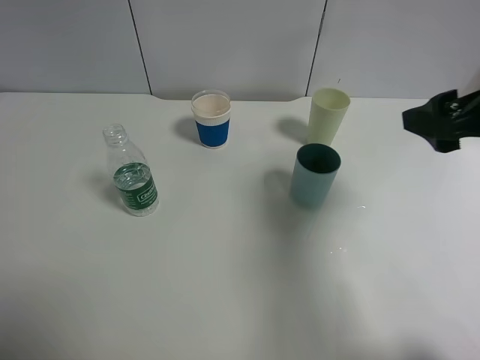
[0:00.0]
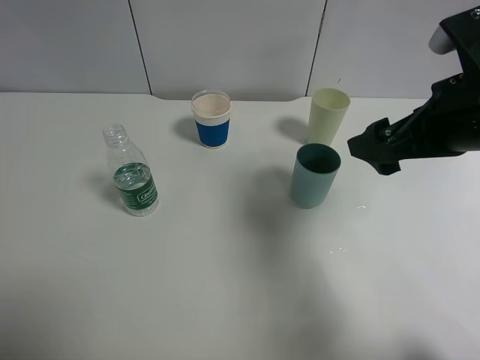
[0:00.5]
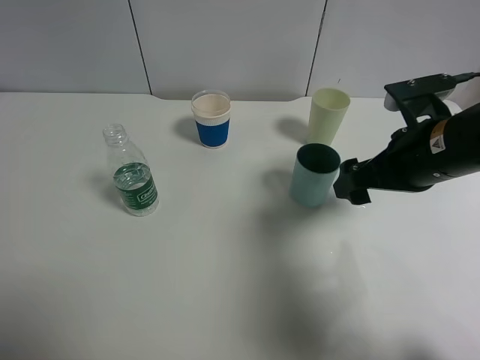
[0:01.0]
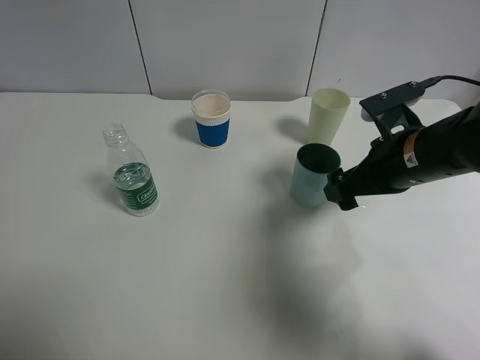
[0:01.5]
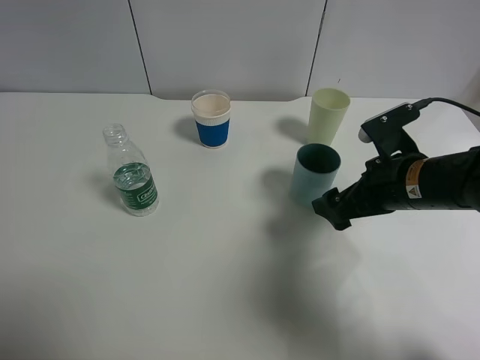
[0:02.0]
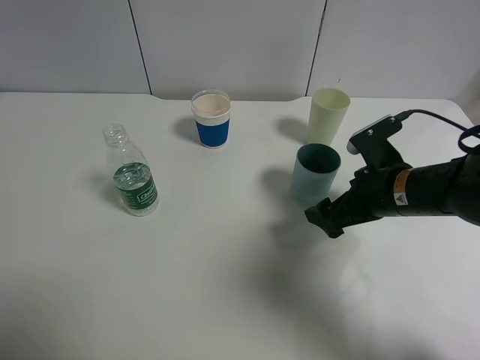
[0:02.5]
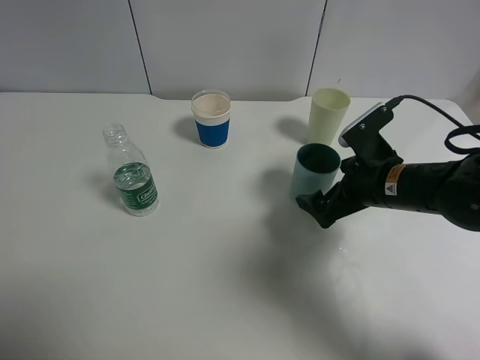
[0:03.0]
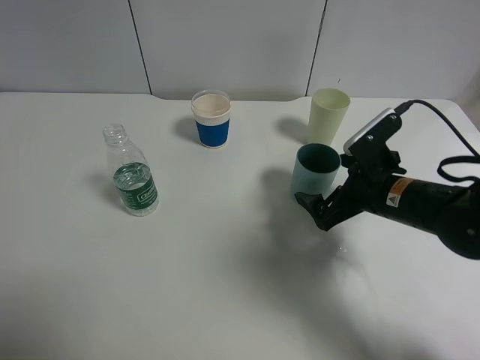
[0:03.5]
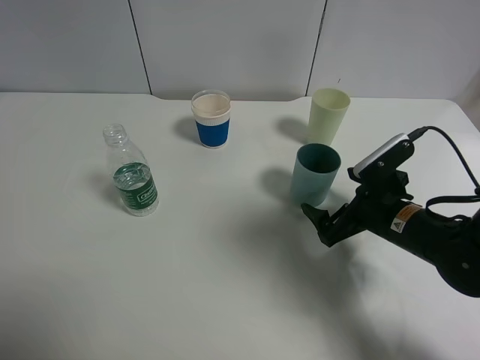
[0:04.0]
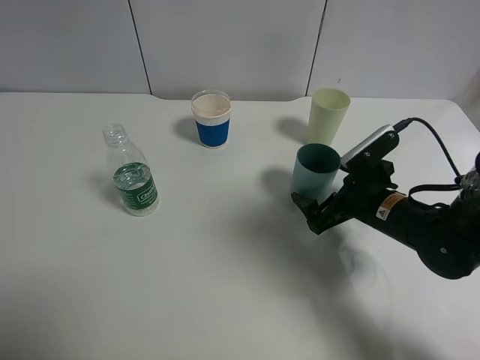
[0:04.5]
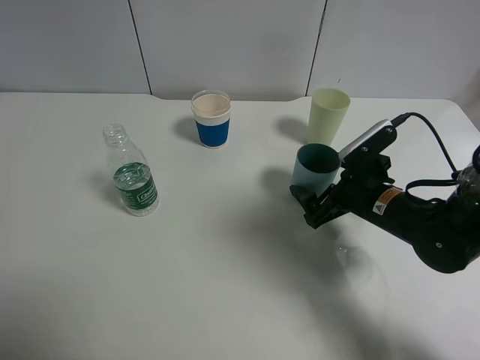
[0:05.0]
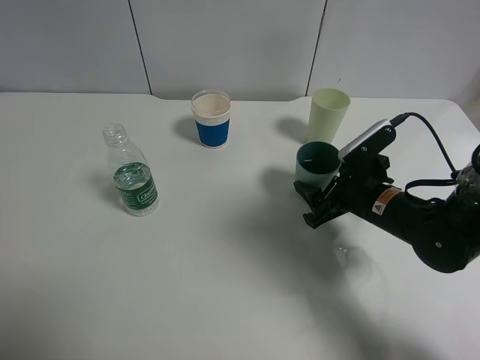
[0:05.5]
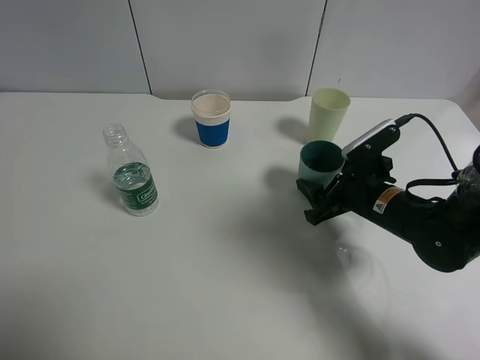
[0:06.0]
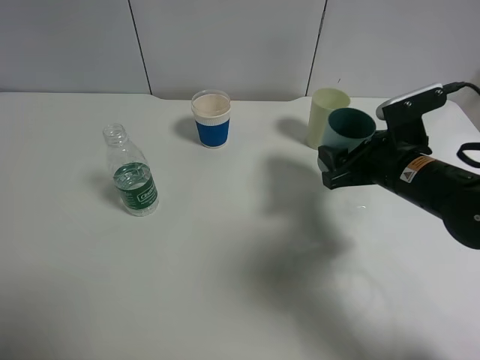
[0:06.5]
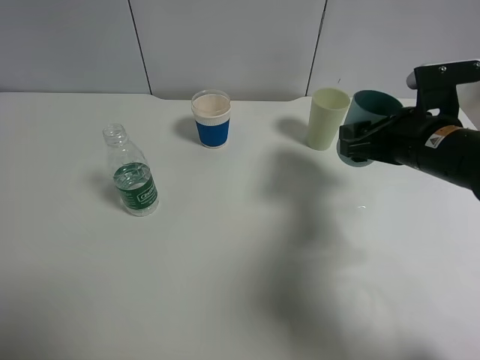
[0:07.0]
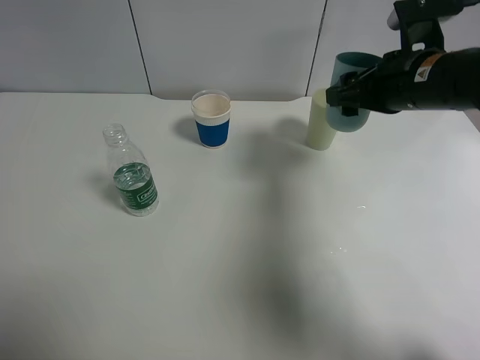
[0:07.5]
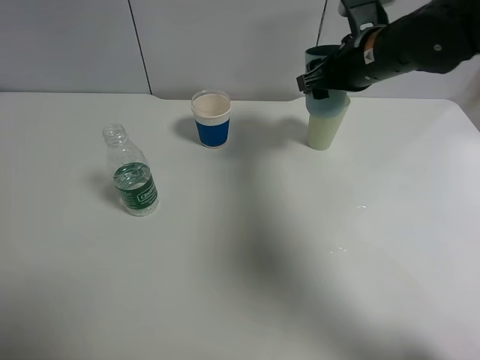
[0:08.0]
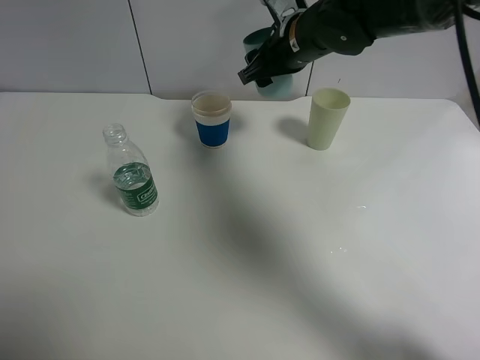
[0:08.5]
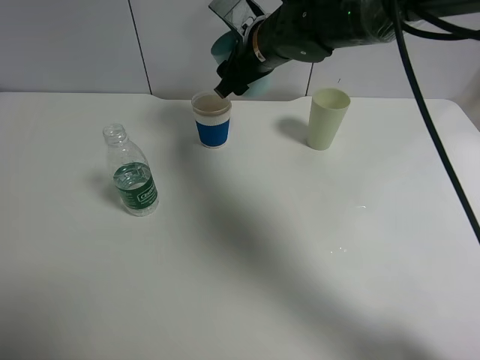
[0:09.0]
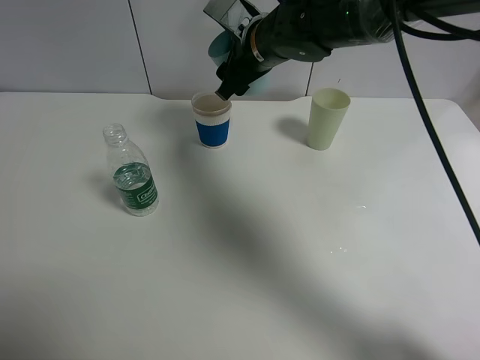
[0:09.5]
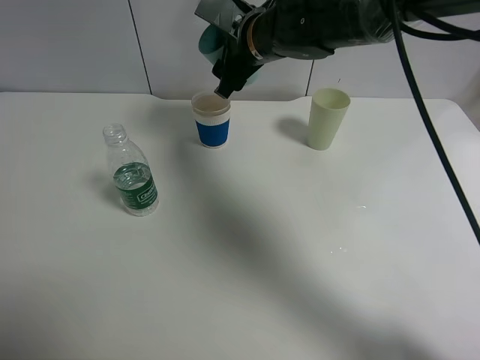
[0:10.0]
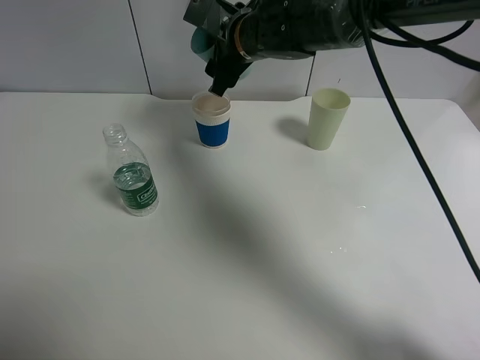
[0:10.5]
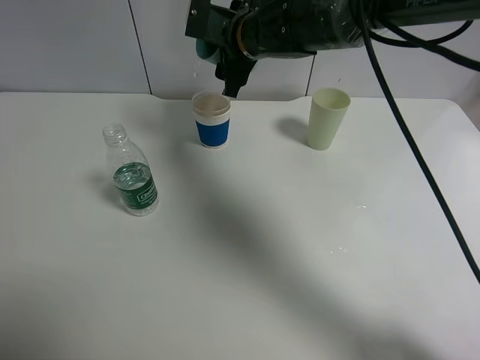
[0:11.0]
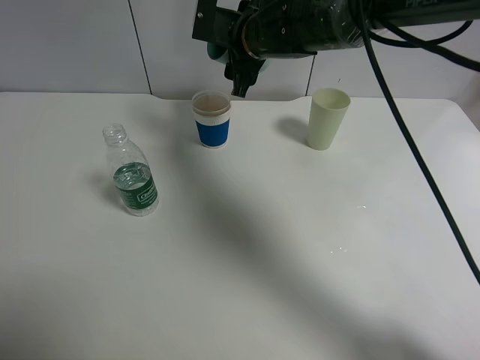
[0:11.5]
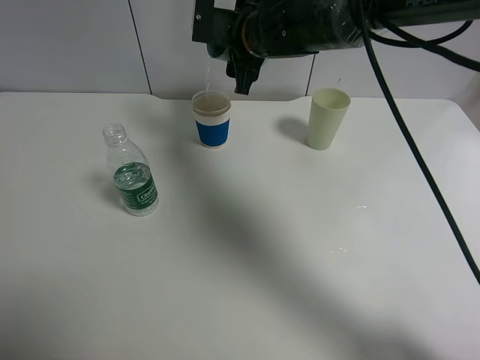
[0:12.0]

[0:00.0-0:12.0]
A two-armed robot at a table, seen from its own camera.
Task of the whole recording: use a clamp to hold the bottle of the drink, pour the beverage into a random cup, then clamp the cup containing the drink and pour the drink into another random cup.
Step, 0:00.0 to 0:06.0: Pick up the blue plastic cup bottle with right gripper.
0:00.0 to 0:02.0: The right gripper is displaced downward and to the left by some 15 cm.
0:02.0 to 0:04.0: The right gripper moves downward, about 5 cm.
0:04.0 to 0:06.0: The right gripper closes.
0:06.0 to 0:08.0: The right gripper moves upward and forward, roughly 20 cm.
0:08.0 to 0:10.0: The right gripper heads to the left, covering about 15 cm.

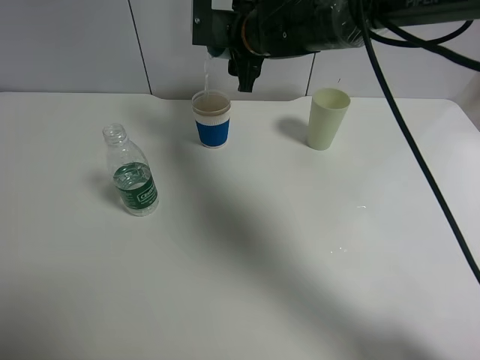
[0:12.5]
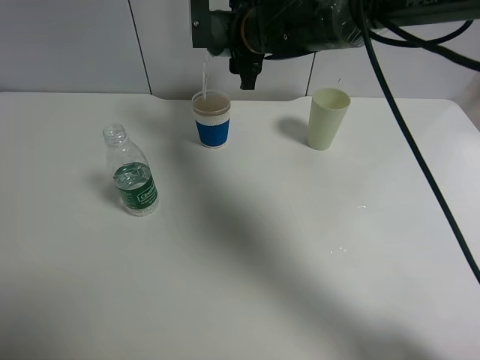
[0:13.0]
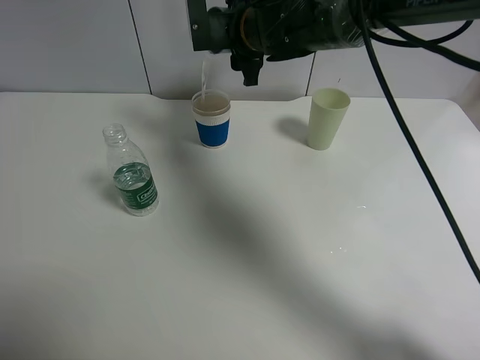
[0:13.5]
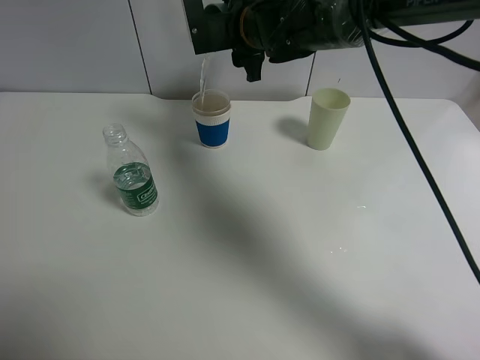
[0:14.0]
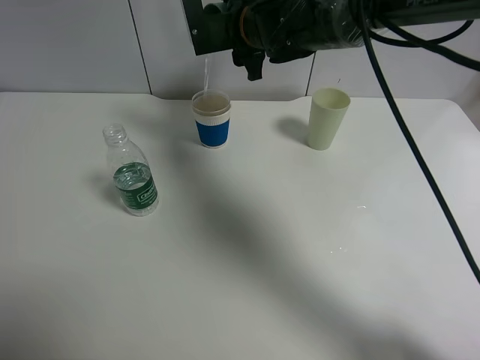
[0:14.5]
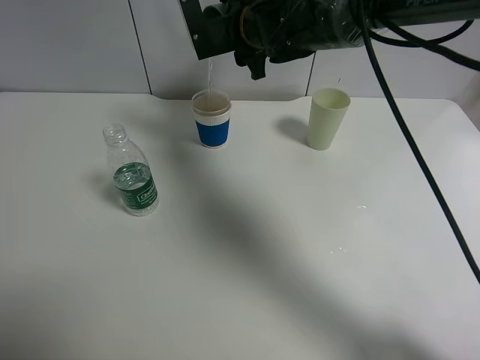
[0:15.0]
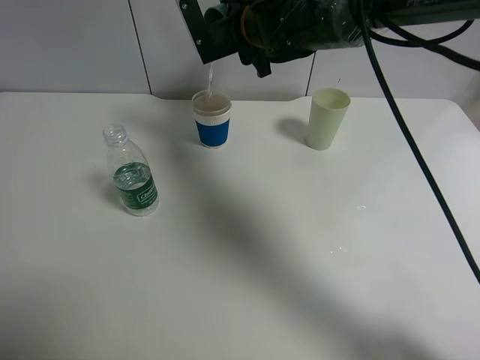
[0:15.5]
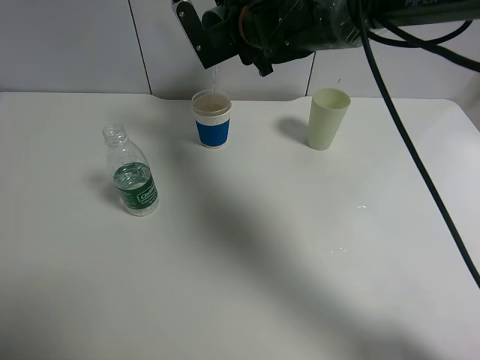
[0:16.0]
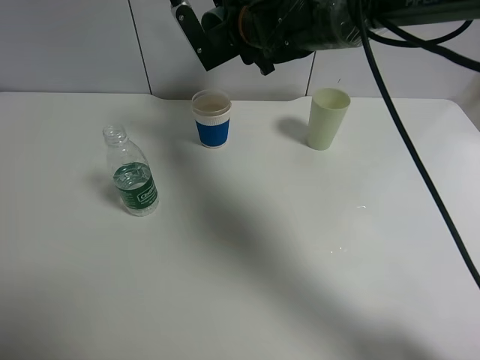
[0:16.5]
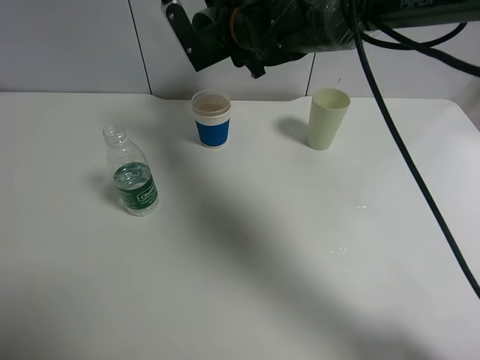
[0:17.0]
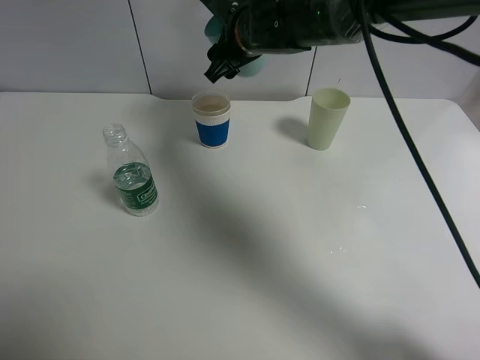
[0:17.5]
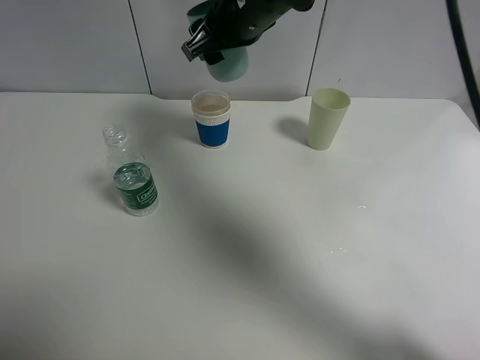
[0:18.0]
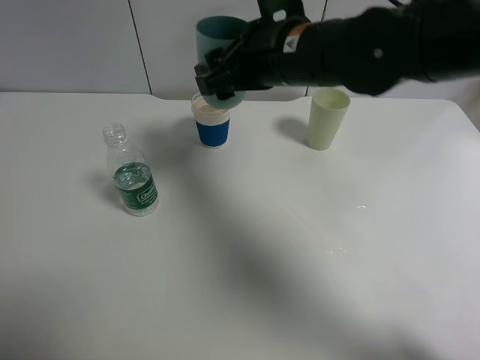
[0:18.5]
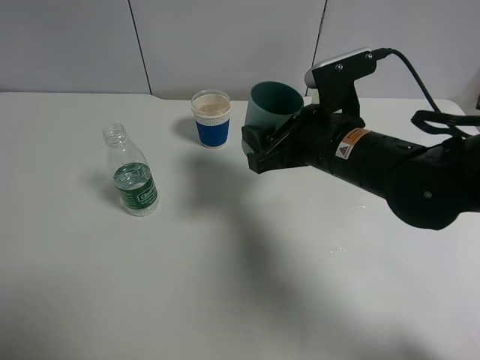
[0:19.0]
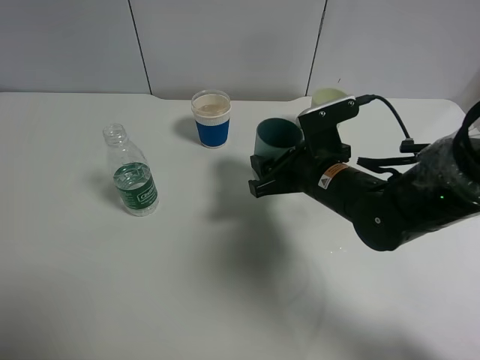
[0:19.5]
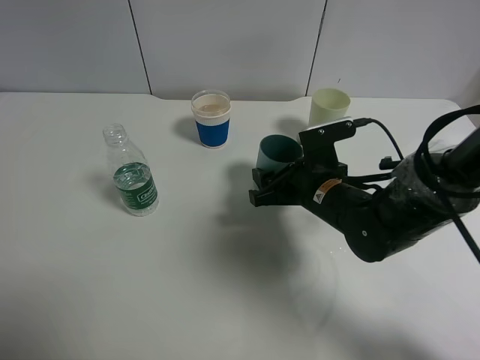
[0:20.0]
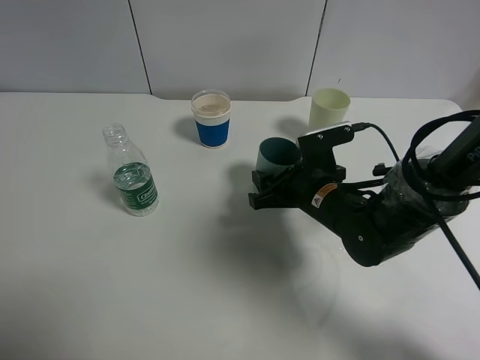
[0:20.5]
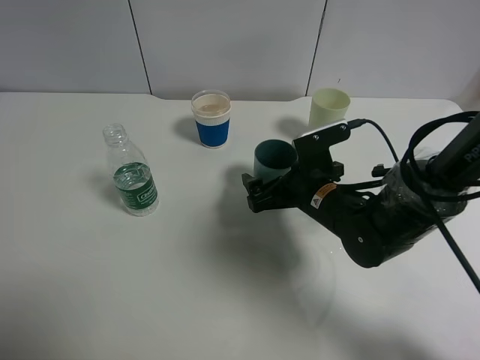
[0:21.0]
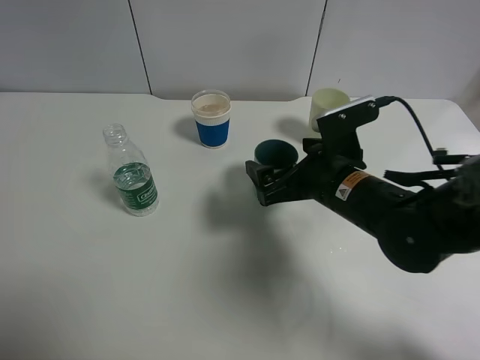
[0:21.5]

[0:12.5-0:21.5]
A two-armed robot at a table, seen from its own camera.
Task of the whole recording: use a clamp to hold the bottle of the drink, pour the beverage into a random cup, then clamp the cup containing the drink and pour the drink into another random cup.
Step, 0:12.5 to 0:17.0: Pour water into the paper cup with right gripper.
Step, 0:17.5 to 0:20.5: Place the blue plastic cup on the table with right gripper.
0:17.0 to 0:19.5: The right gripper shifts roughly 25 cm backward, downward and to the right.
0:19.5 to 0:21.5: The right gripper opens up.

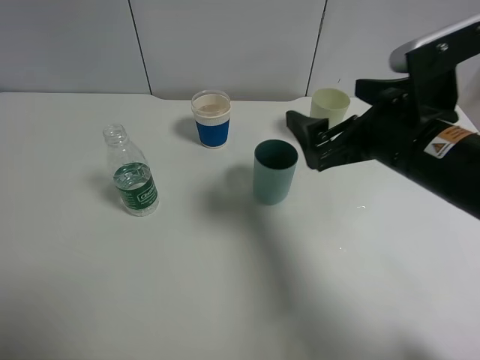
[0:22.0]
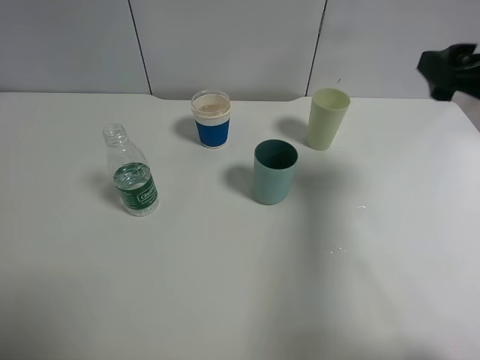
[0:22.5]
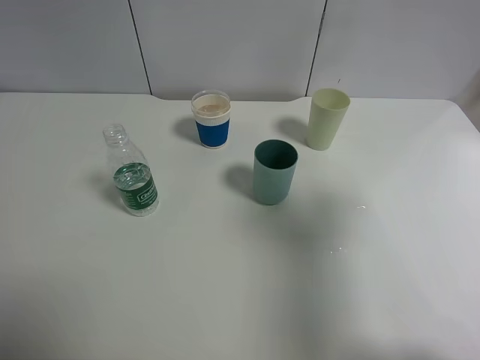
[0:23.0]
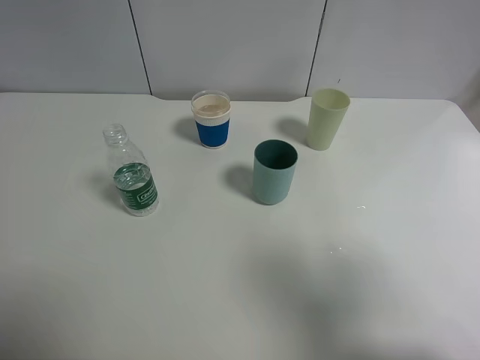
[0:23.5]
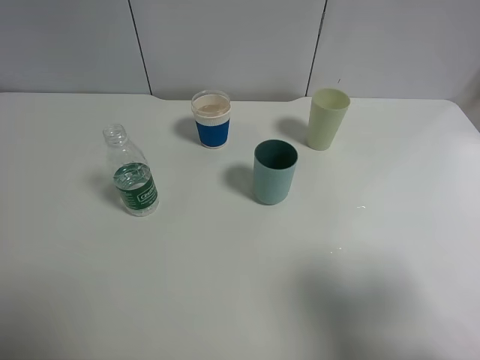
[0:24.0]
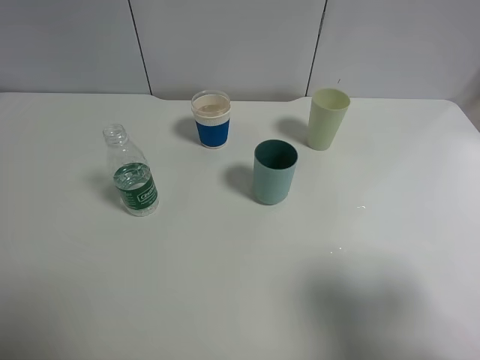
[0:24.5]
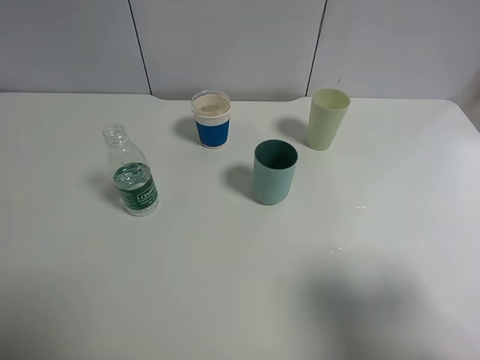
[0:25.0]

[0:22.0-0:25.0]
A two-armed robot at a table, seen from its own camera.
Task of the whole recording: use a clamp to hold the bottle of the drink, pour the beverage into a random cup, then clamp the cup containing the drink and pour the drink into another random cup.
0:22.0 to 0:23.5: The right gripper goes about 25 cm backward, to the right and upward.
0:23.5 to 0:25.0: The right gripper is displaced downward by some 5 cm.
